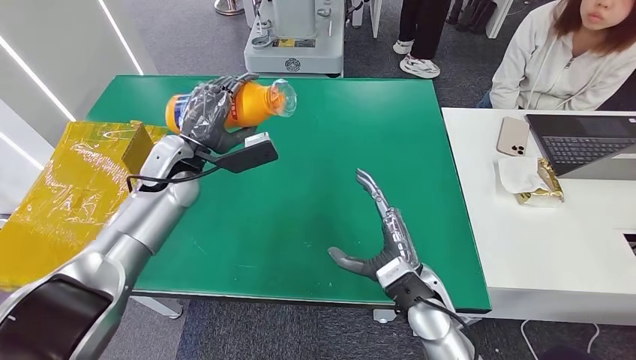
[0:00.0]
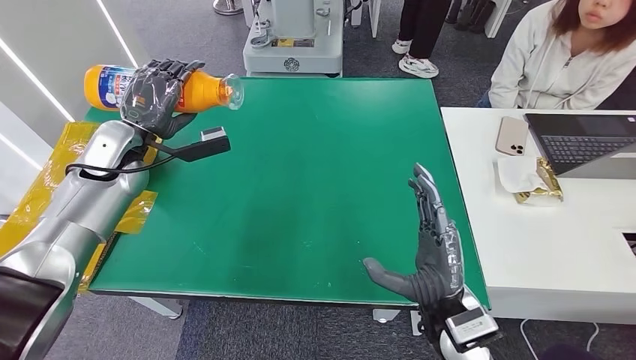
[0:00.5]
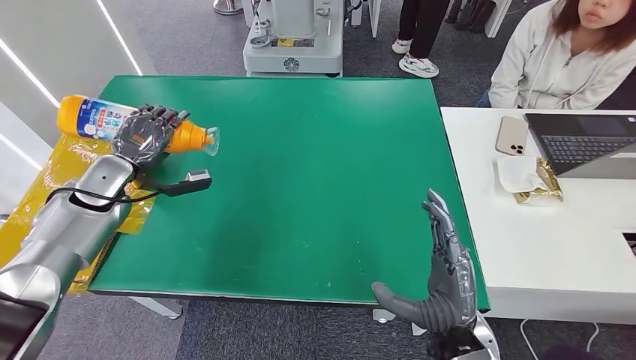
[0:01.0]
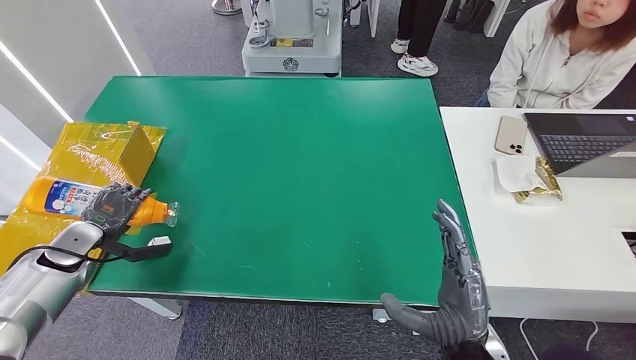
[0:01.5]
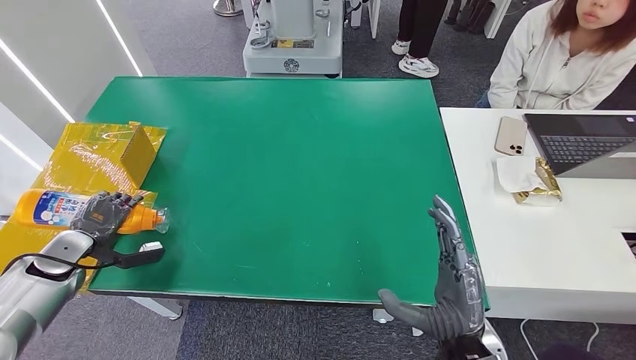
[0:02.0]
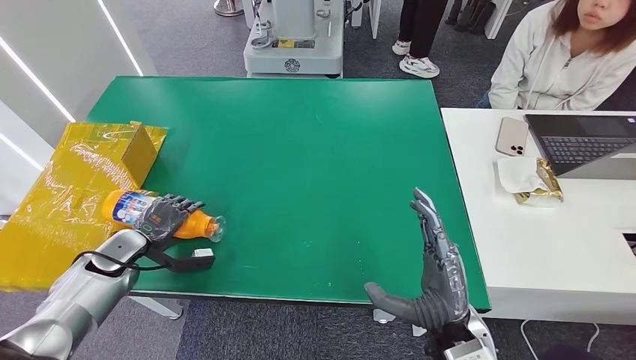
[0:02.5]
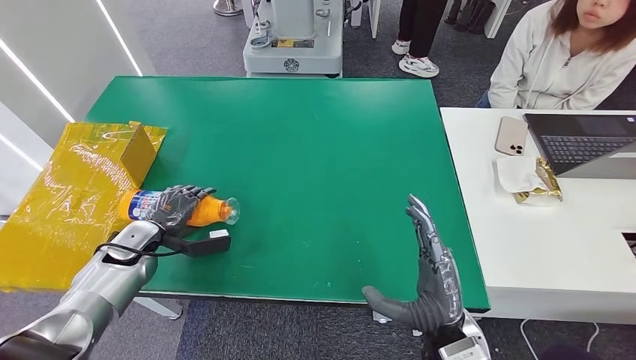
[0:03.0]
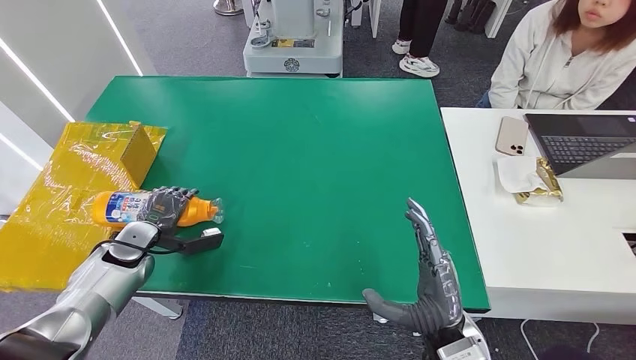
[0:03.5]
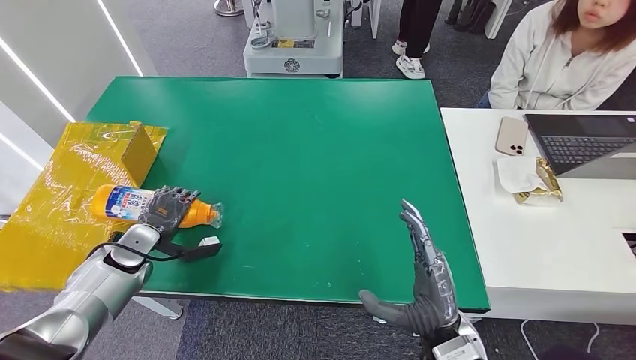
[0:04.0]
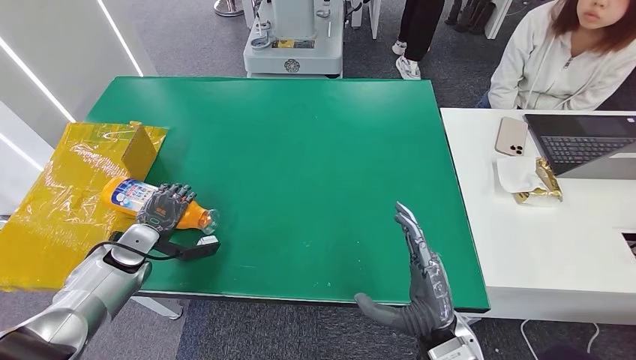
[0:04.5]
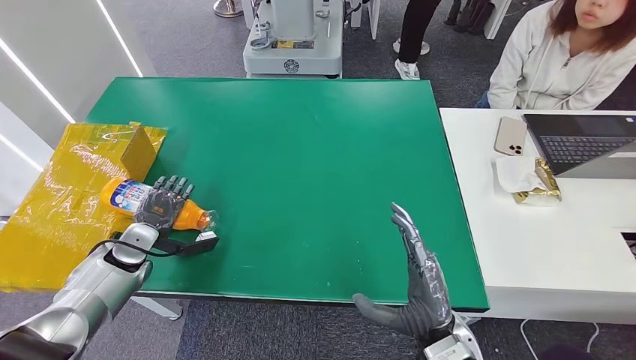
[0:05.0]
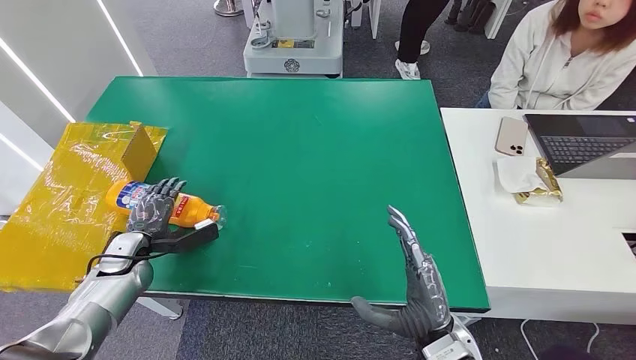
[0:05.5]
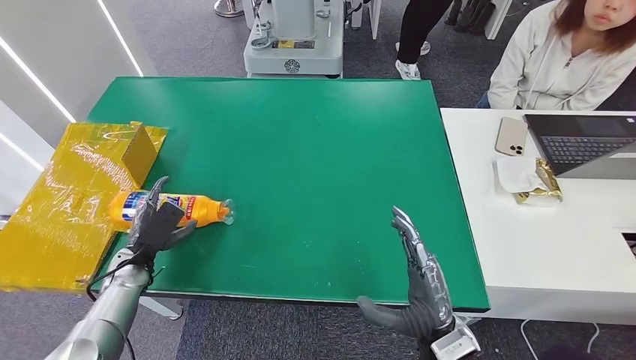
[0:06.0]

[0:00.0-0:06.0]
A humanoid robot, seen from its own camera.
Step, 0:00.0 to 0:05.5: Turn the bottle to the front side.
0:02.0 to 0:04.0: The left hand shifts about 10 cm to the right.
0:04.0 to 0:06.0: The left hand ends up approximately 5 cm from where it was.
